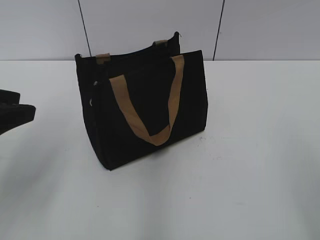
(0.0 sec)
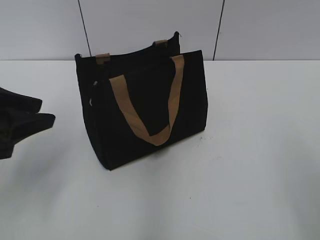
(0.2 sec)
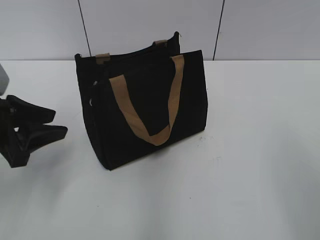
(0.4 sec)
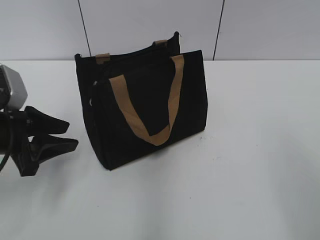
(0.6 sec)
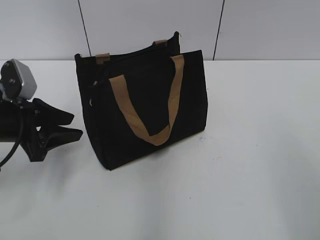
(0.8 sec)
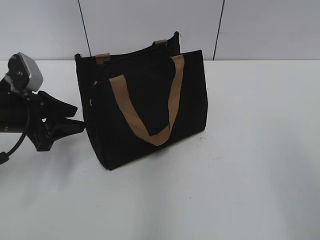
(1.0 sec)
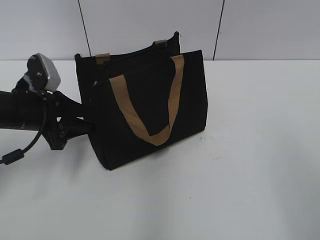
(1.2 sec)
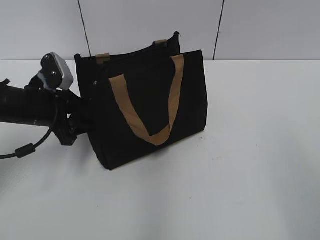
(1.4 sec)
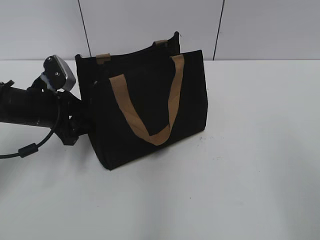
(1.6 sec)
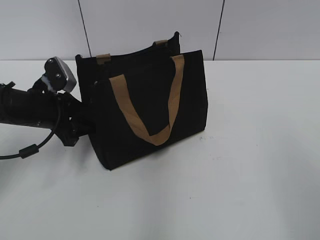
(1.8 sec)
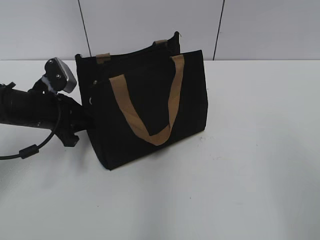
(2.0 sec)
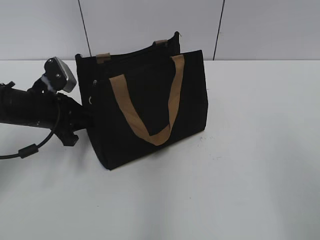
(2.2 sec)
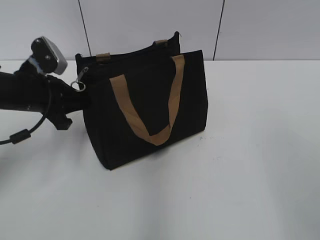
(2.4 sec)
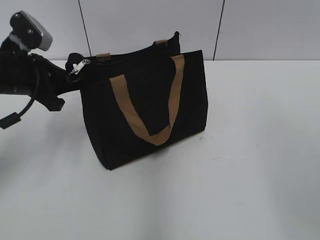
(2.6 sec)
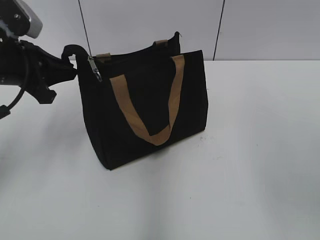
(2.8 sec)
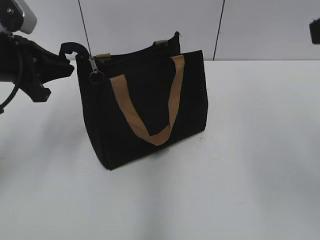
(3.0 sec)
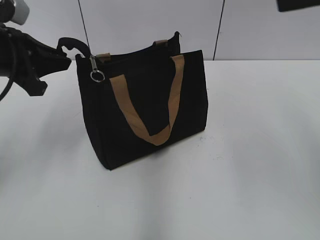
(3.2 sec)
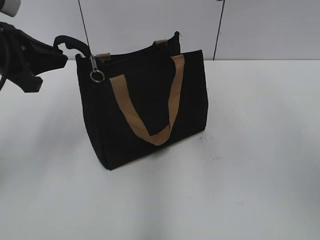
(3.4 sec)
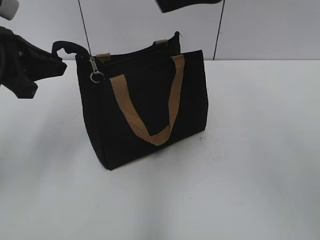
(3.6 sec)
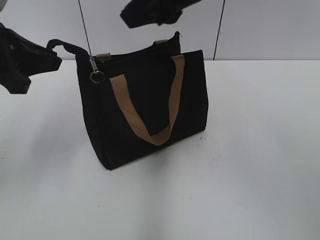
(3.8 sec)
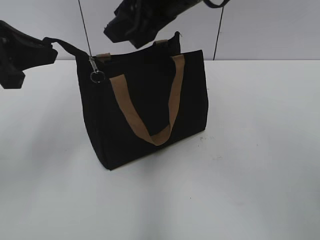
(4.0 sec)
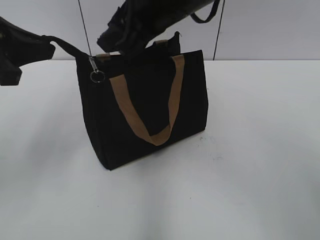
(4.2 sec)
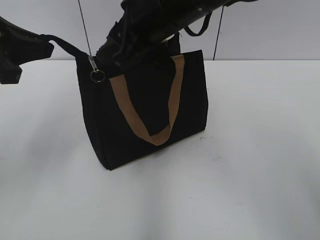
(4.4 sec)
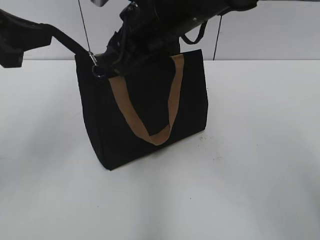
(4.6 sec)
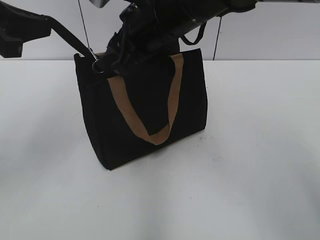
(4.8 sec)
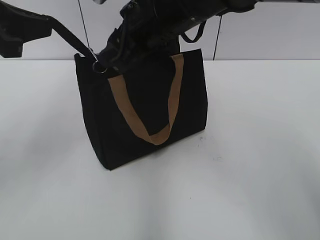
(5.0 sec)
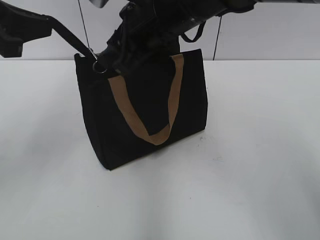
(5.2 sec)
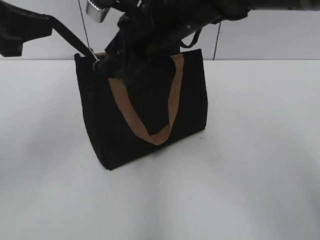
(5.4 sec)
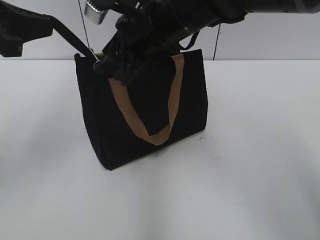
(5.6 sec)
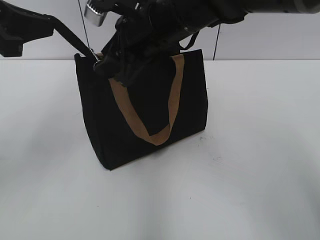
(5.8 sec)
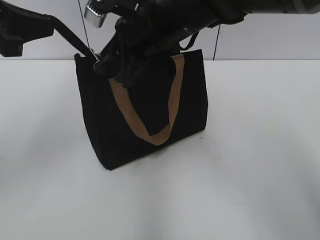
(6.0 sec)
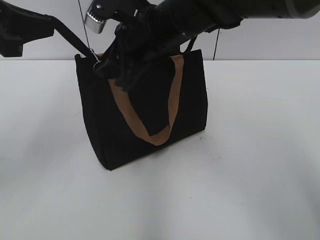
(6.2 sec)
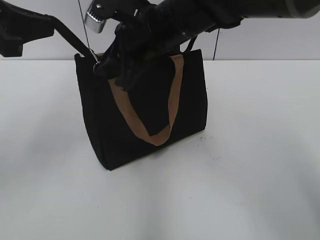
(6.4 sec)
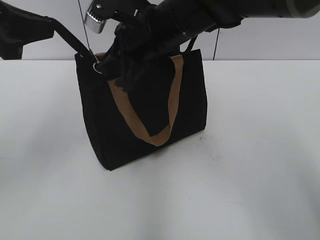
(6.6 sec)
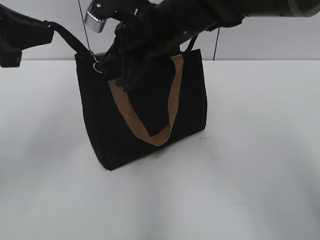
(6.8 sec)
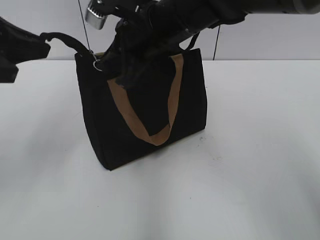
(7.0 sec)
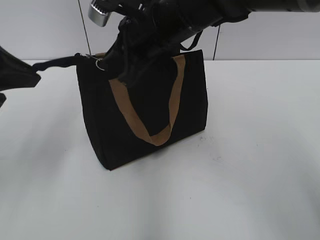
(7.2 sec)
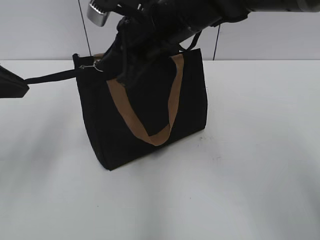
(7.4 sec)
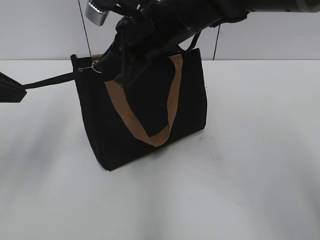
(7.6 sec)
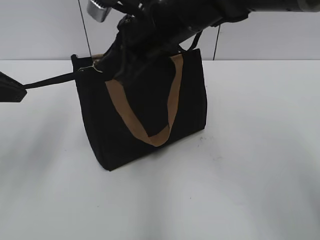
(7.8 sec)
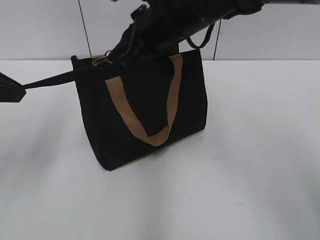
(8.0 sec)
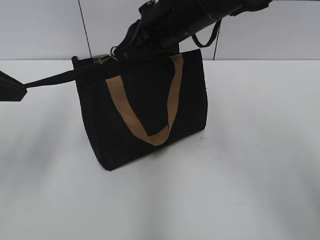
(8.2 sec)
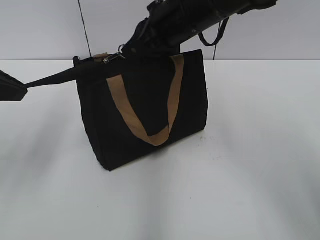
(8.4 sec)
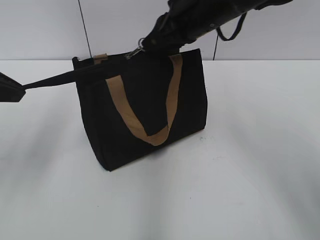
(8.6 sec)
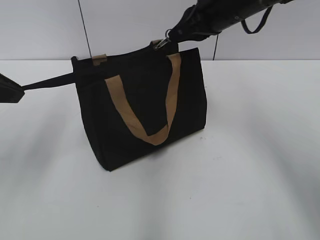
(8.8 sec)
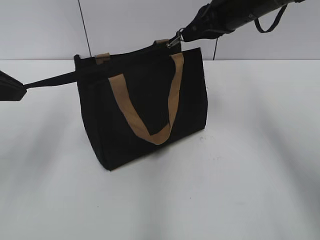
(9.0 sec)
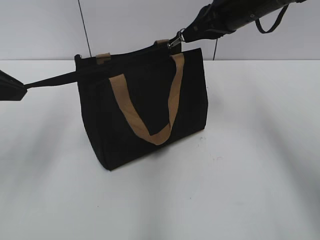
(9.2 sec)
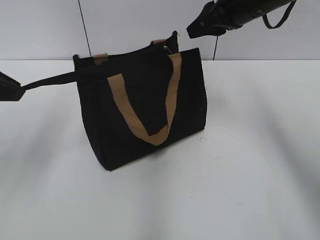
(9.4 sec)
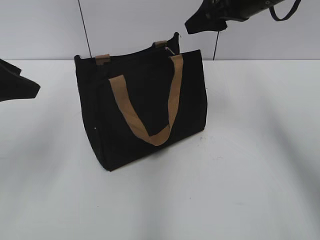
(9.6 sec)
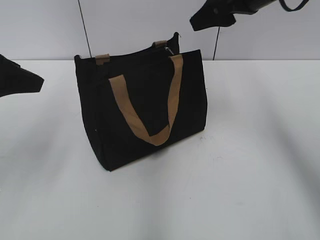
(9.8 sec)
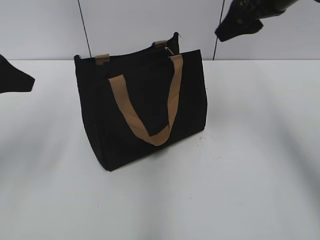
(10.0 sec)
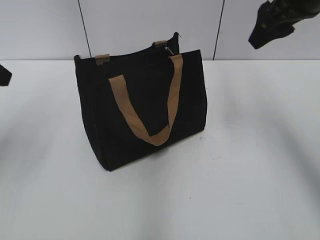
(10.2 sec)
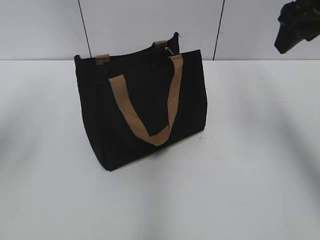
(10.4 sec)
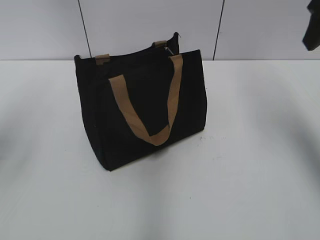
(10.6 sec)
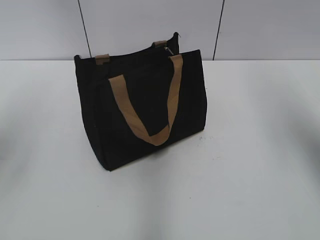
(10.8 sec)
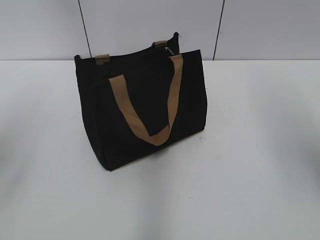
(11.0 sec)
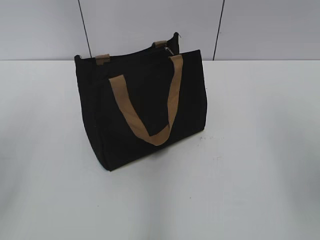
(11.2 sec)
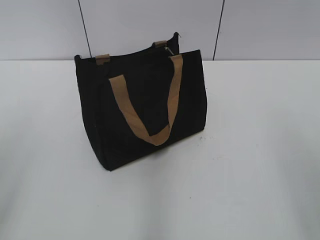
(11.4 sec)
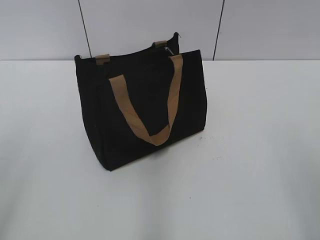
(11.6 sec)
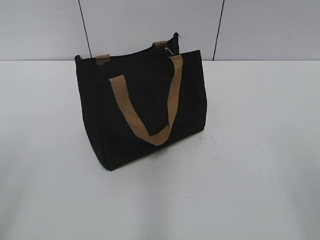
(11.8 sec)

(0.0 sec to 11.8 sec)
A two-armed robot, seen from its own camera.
Step, 0.0 sec - 9.2 sec: Zip up the bag with your right hand.
0.0 sec - 1.4 sec: The left gripper goes some 20 cm forward and downward.
1.4 sec - 3.0 sec: The left gripper is displaced upward by about 10 cm, and closes its fingers.
3.0 sec - 4.4 sec: The left gripper shifts some 5 cm upward. The right gripper is displaced to the left and forward by approximately 25 cm.
4.4 sec - 6.0 sec: The grippers stay close to where they were, moving slightly.
6.0 sec - 7.4 sec: The right gripper closes up.
7.4 sec - 8.8 sec: The right gripper moves to the right and forward, roughly 10 cm.
8.8 sec - 10.4 sec: The left gripper opens its fingers; the right gripper goes some 15 cm to the right, upward and backward, and opens its fingers.
10.4 sec - 11.8 sec: Both grippers move backward, approximately 25 cm.

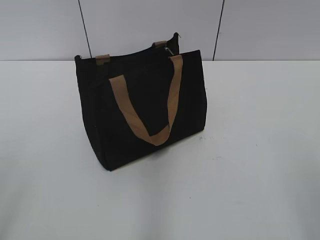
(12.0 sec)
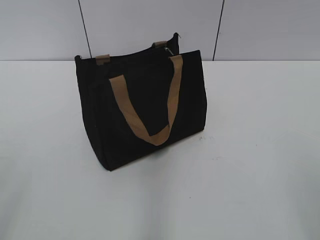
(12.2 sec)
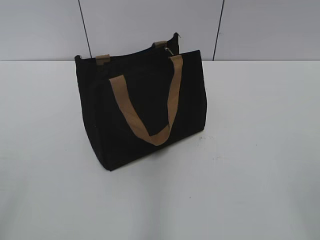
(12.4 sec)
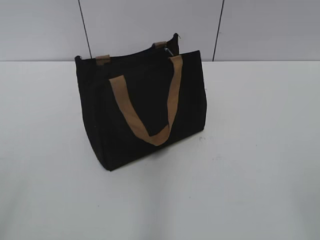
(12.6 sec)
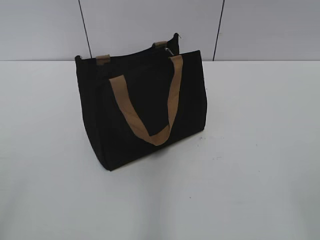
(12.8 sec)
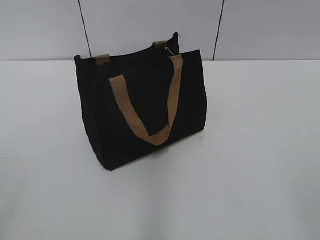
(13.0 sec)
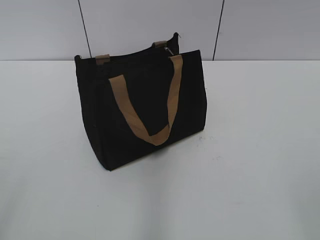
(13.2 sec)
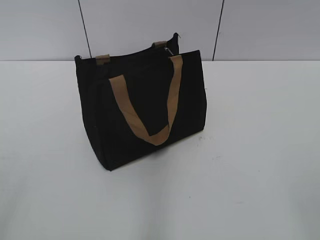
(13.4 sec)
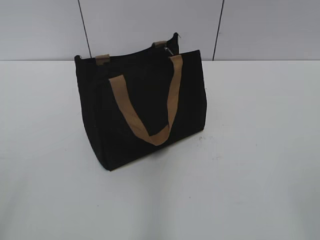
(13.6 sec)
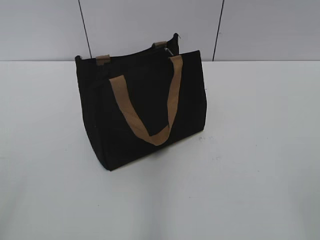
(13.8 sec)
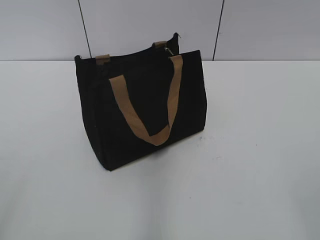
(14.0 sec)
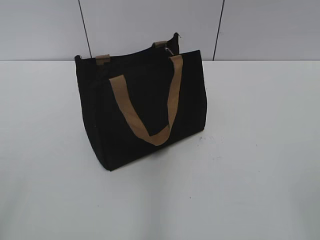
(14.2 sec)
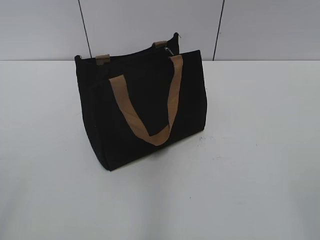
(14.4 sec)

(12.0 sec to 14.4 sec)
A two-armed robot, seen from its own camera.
13.2 sec - 14.4 sec: The two grippers keep their place.
